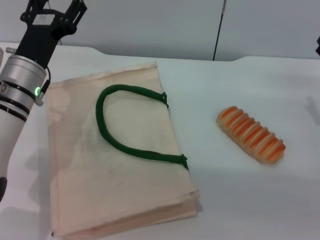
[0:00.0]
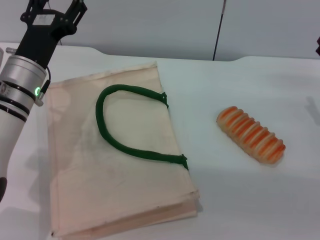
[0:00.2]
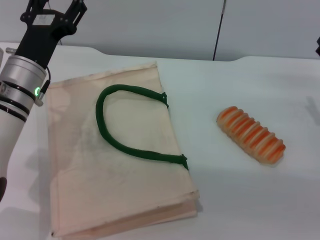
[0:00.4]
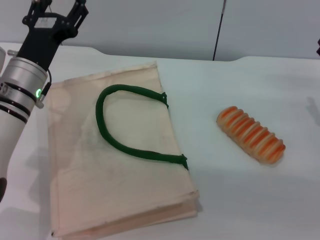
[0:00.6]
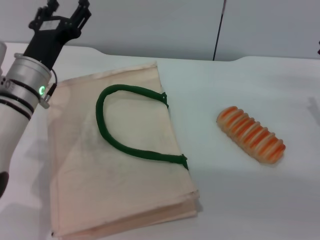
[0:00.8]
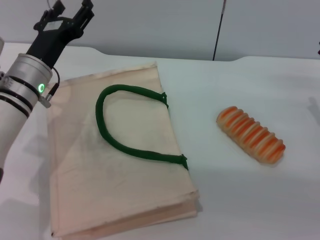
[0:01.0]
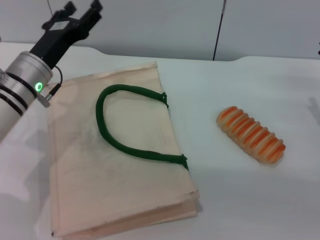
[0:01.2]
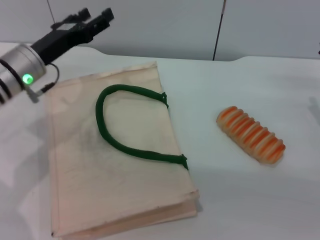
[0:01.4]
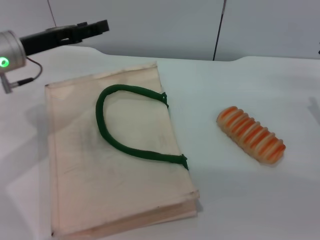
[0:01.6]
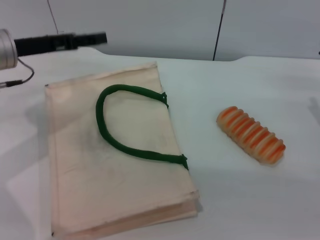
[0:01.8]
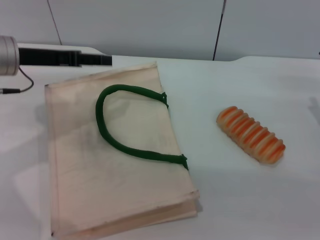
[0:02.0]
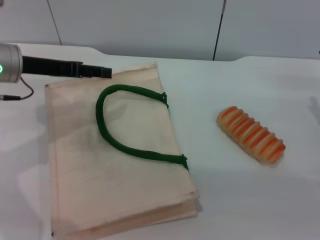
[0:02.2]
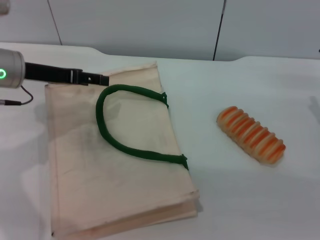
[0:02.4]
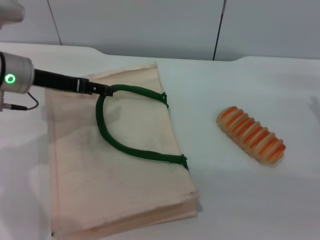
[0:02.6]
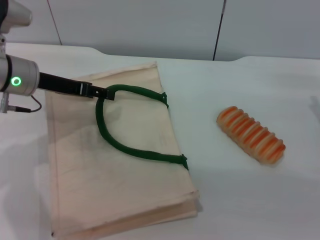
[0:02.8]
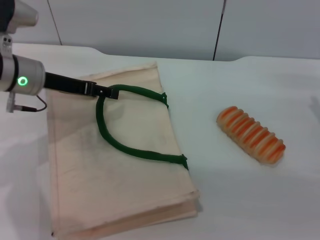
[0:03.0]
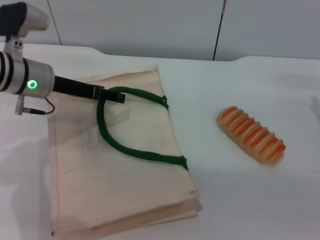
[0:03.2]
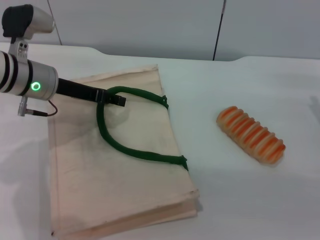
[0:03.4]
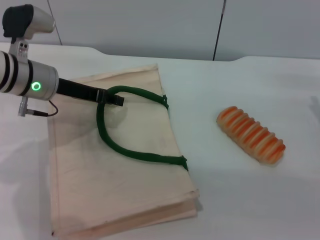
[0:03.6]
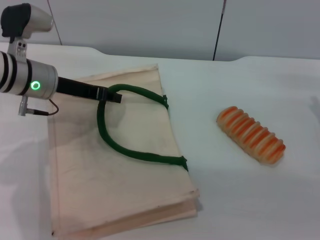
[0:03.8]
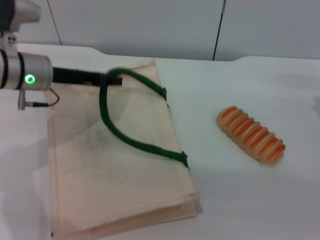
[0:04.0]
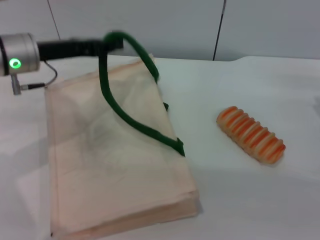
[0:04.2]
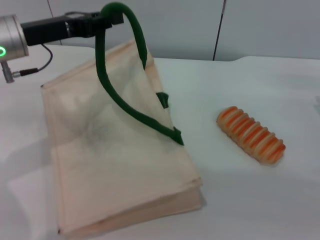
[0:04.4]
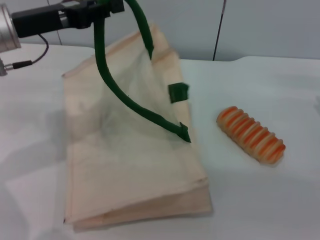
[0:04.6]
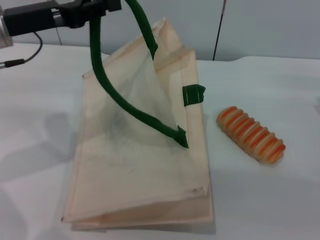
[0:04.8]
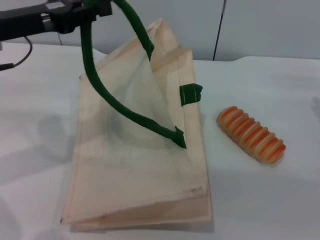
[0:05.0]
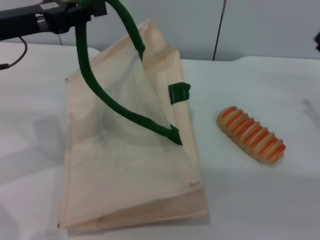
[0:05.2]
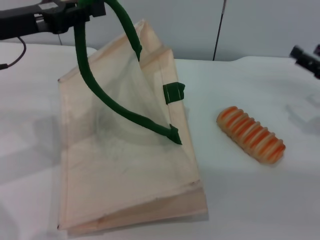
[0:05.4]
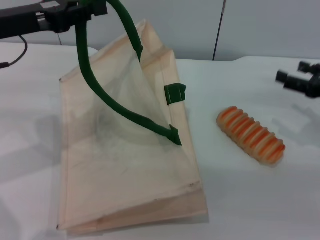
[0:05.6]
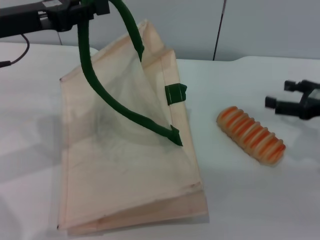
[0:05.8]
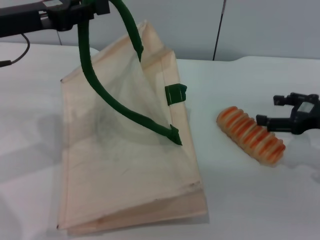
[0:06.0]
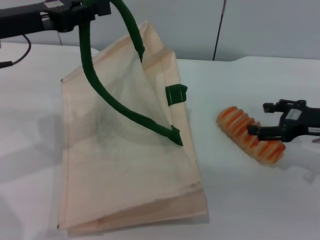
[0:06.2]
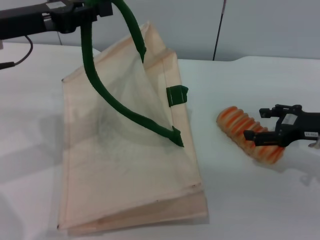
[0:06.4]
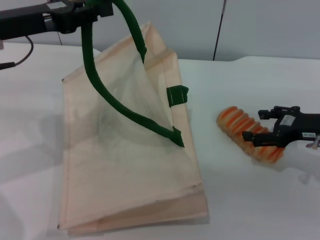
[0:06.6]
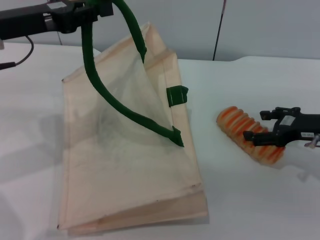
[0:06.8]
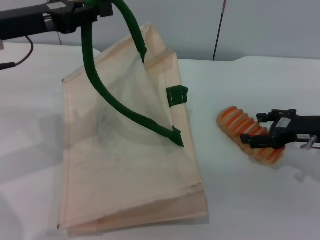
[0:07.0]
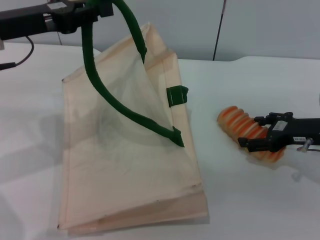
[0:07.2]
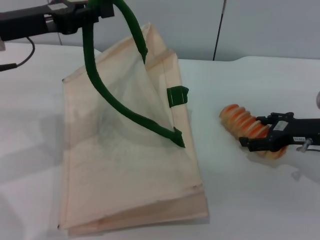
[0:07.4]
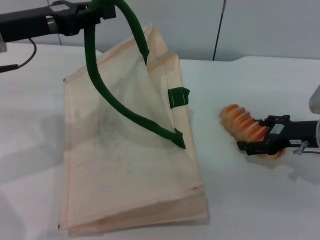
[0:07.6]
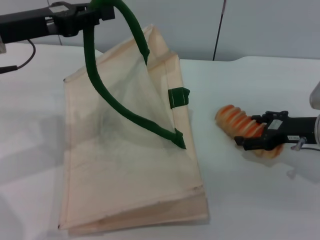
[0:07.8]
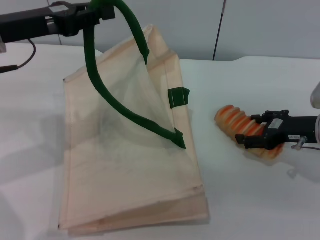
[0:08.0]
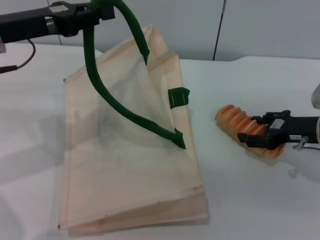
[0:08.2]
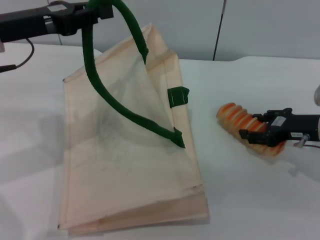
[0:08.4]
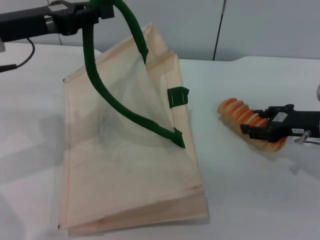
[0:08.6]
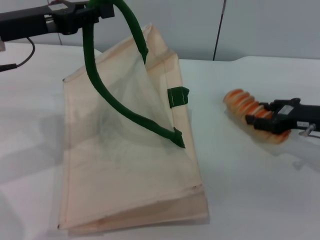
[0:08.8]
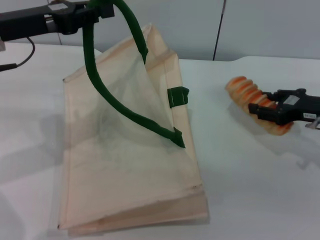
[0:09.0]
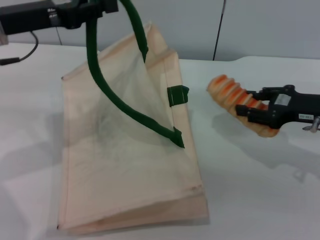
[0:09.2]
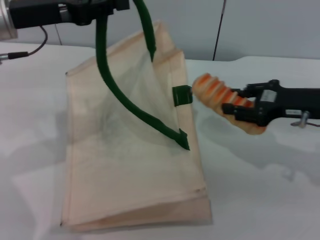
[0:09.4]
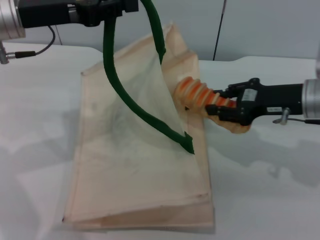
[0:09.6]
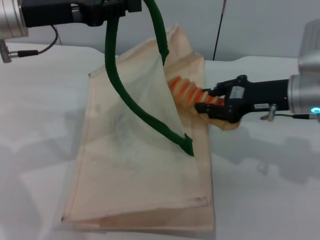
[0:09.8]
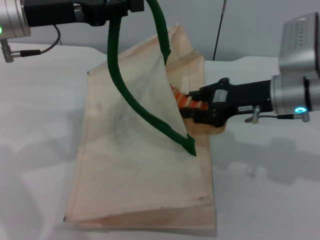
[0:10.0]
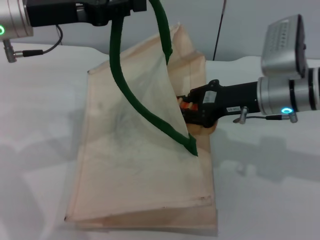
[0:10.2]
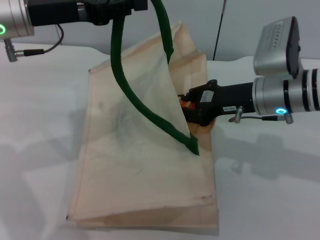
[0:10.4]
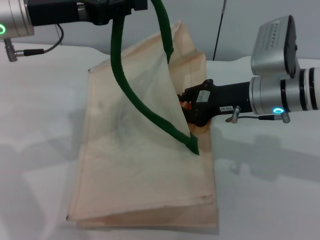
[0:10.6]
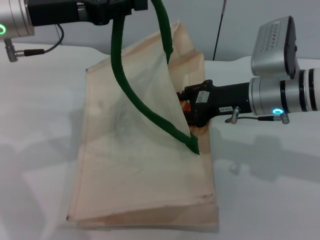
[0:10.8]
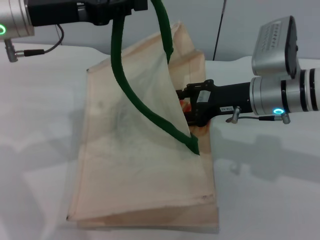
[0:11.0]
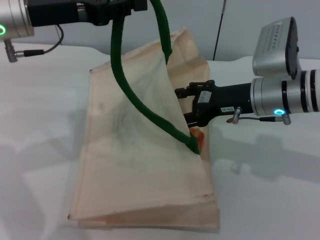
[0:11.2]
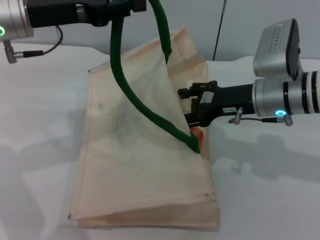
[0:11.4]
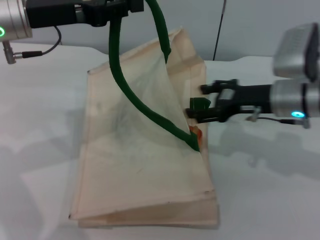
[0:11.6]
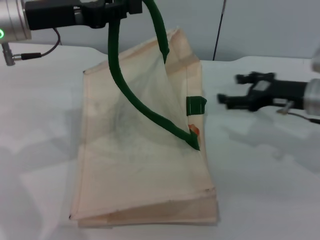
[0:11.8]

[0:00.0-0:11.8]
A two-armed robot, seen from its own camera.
Task of the whole recording: pick up the bread from the table and place it in the white handbag.
Step, 0:00.0 to 0:04.8: Lift the woven bag with the left gripper to open it.
Step, 0:05.2 to 0:09.0: Pick up the bread with the right gripper.
Step, 0:09.2 to 0:11.6: Place the bread into the woven bag with the right gripper.
0:03.0 to 0:04.4: The left gripper moves roughly 5 cm, and closes its fingers.
0:06.0 to 0:08.8: The grippers move only a little.
0:08.8 to 0:10.4: The right gripper is displaced to the left by some 10 cm, and closes.
0:10.4 to 0:11.8: The right gripper shifts some 10 cm to the right, and opens up.

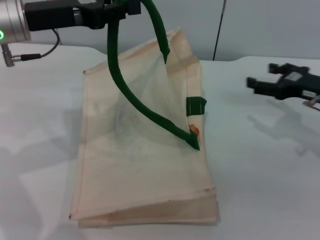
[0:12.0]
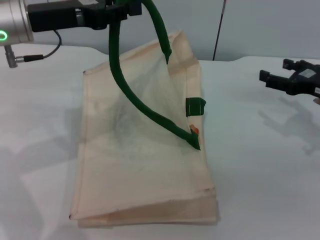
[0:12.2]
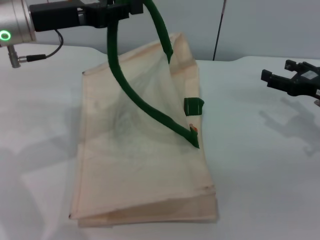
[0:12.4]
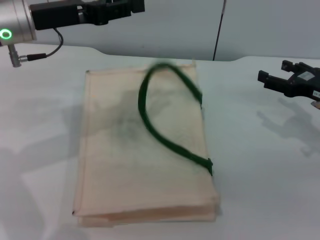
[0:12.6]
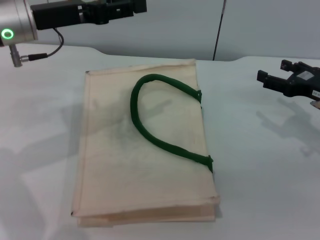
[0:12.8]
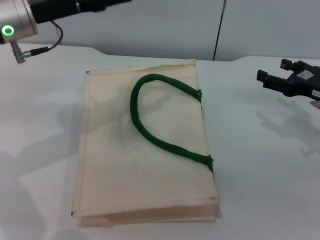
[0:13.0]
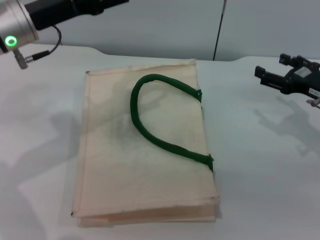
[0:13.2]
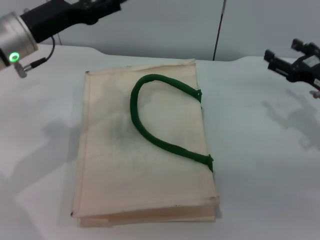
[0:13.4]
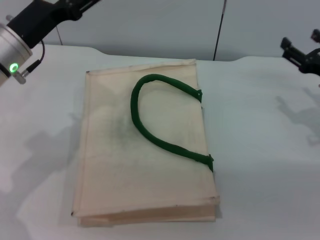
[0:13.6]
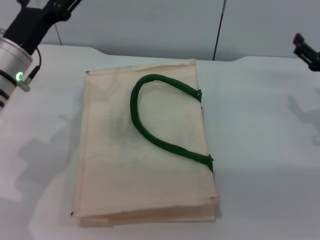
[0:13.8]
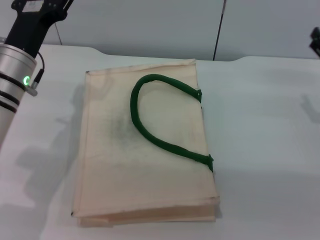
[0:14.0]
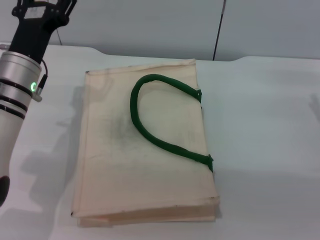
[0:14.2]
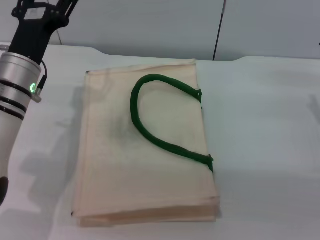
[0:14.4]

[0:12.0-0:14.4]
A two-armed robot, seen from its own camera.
Task of the whole recording: pick up the bread from the table and place it in the white handbag.
Step, 0:12.0 to 0:12.8: Lower the woven bag with the left gripper to close it.
0:12.0 to 0:13.2: The left gripper opens its fingers.
0:13.2 to 0:14.4: The left gripper travels downward by about 10 cm.
